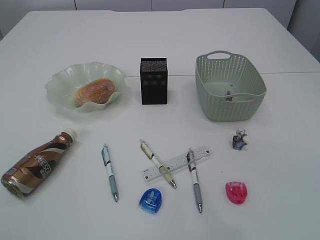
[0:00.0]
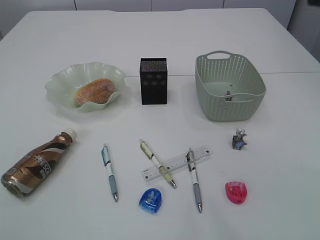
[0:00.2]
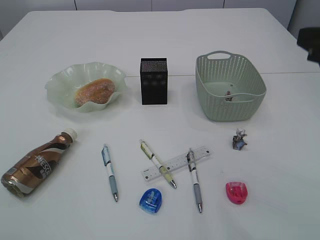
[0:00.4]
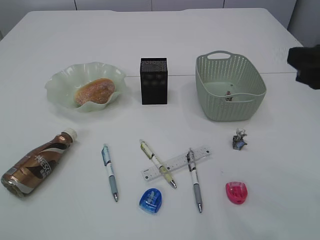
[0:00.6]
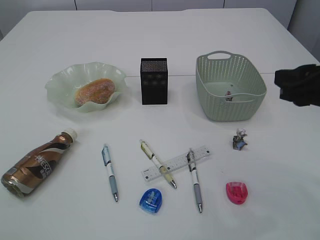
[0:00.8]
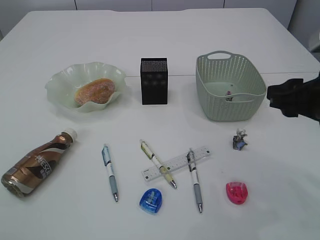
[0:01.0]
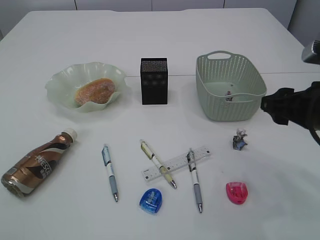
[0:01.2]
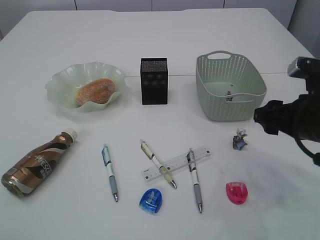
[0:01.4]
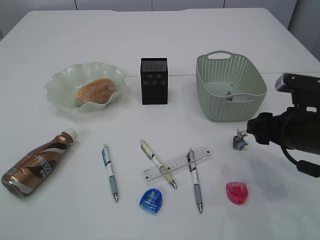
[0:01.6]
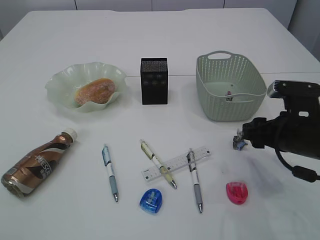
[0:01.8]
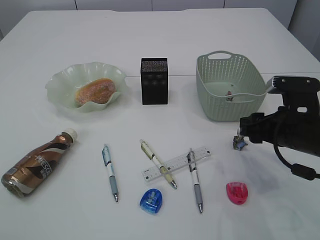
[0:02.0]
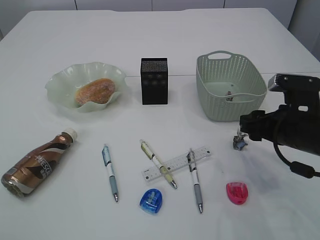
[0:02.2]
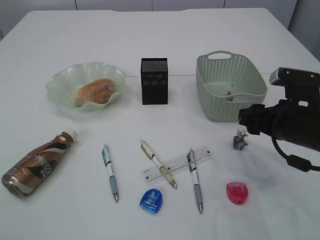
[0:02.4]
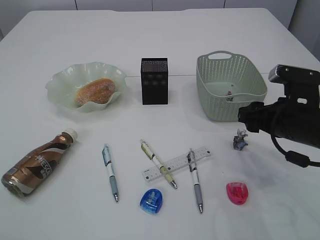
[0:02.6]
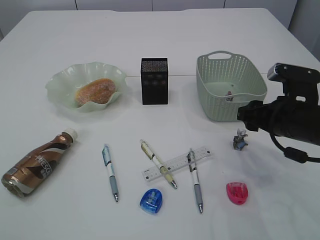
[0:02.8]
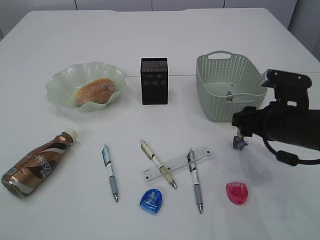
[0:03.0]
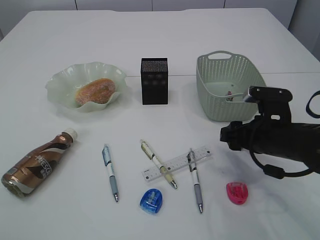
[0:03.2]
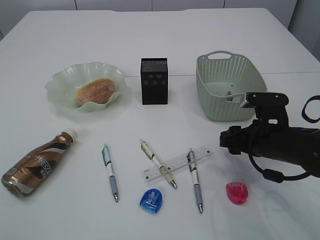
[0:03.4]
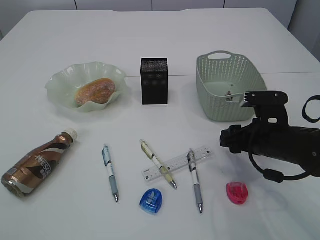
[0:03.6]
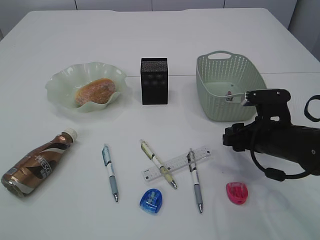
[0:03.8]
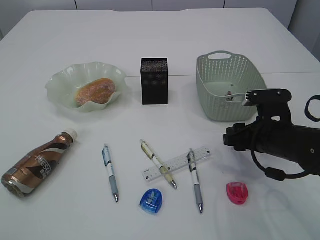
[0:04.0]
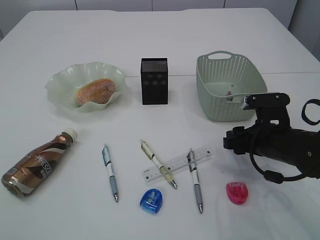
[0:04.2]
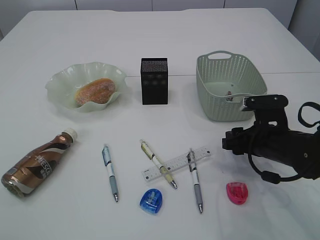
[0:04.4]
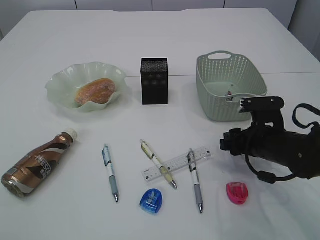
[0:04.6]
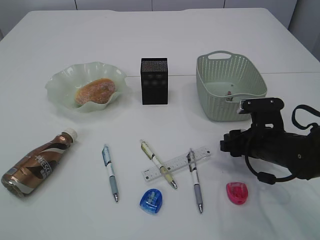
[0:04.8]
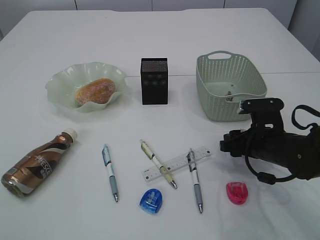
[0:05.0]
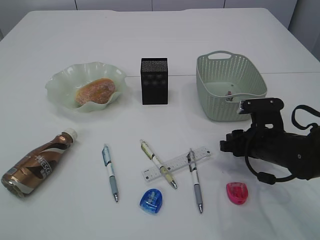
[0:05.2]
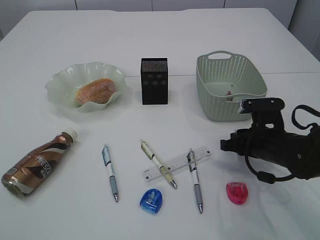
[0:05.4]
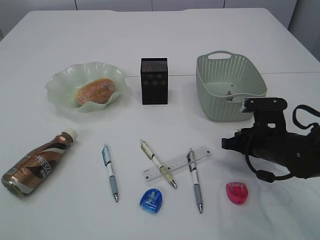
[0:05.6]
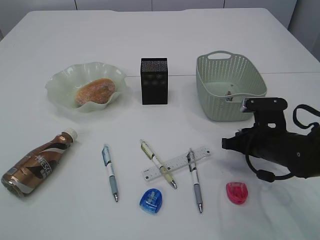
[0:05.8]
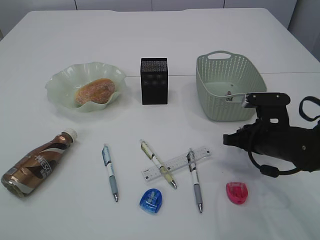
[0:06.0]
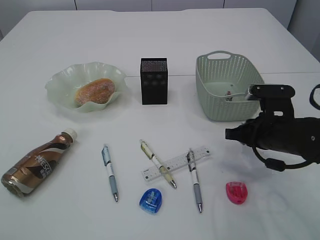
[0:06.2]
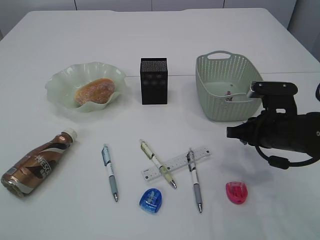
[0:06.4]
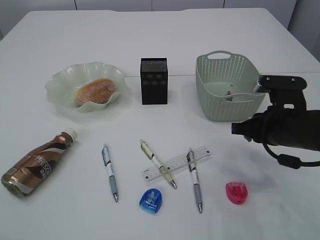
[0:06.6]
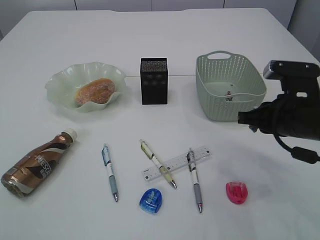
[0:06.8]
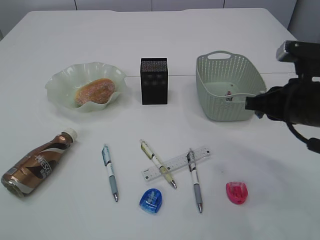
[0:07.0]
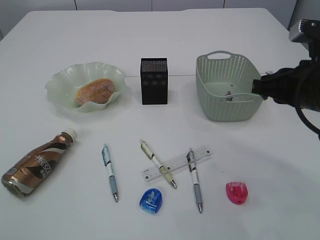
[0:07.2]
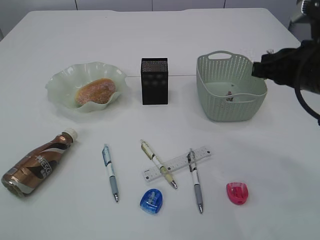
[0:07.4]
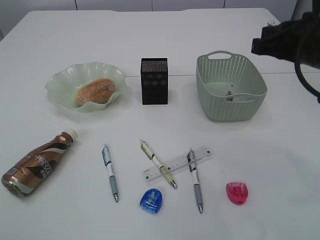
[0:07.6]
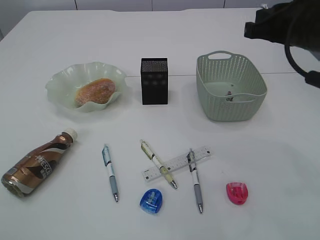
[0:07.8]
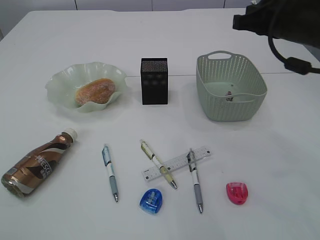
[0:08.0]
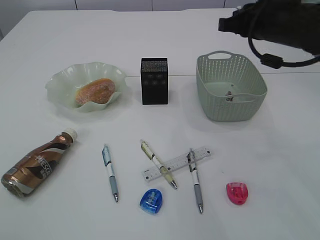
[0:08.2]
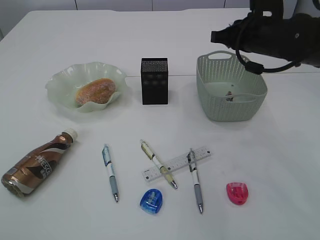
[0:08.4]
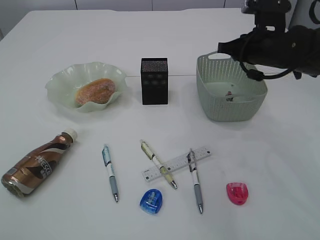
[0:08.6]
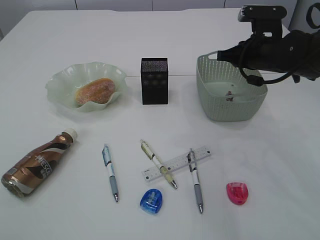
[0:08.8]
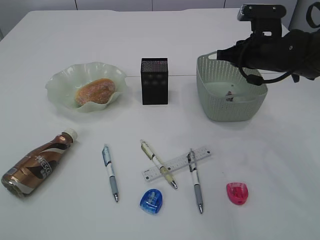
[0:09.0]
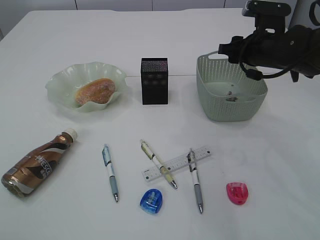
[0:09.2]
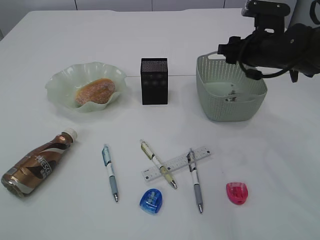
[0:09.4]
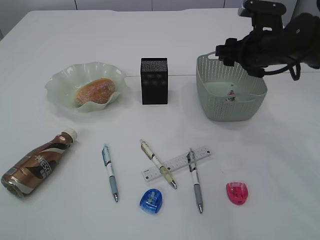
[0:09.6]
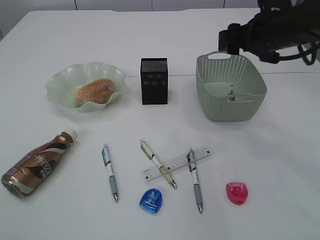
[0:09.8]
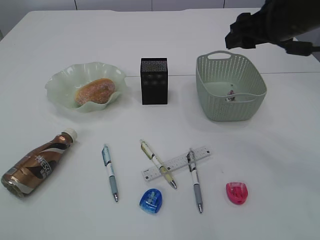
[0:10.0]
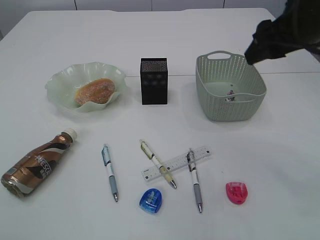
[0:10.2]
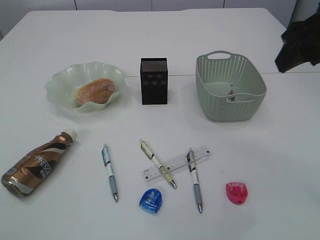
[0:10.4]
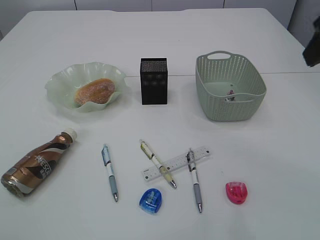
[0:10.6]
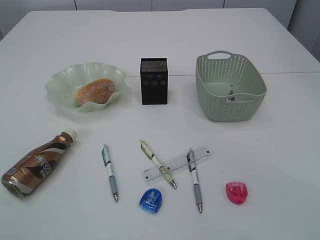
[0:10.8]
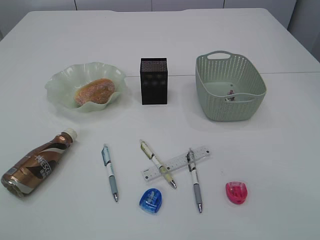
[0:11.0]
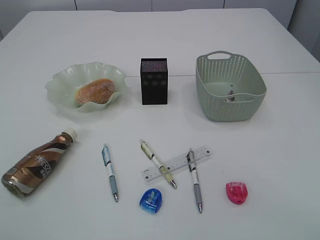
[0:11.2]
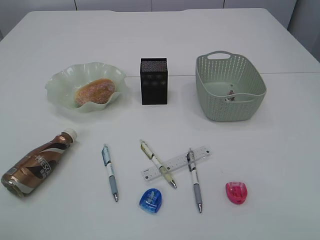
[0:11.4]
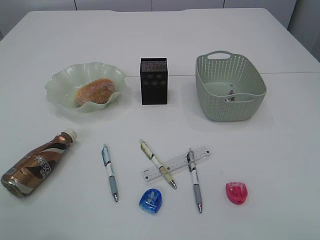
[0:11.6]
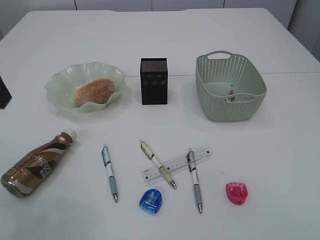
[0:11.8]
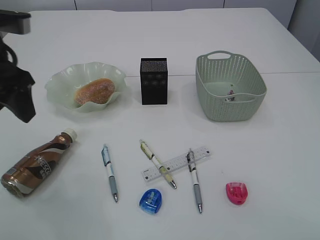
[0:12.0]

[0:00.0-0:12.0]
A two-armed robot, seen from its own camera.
Step, 0:00.0 to 0:06.8: Pick up the waste paper.
Step, 0:07.0 to 0:09.6: Place the waste paper in the basket.
0:00.0 to 0:01.6: The right gripper heads downward, covering roughly 25 cm.
0:01.6 to 0:03.0: There are only small adjustments of the grippers.
0:03.0 to 0:04.4: The right gripper travels downward by roughly 5 cm.
0:04.4 to 0:06.0: The right gripper closes up.
0:06.0 to 0:07.6: The right gripper heads upward, covering some 20 cm.
0:07.6 to 0:09.0: The right gripper travels forward and downward by approximately 15 cm.
0:09.0 to 0:10.4: The right gripper is displaced backward and upward by roughly 20 cm, and opens its fingers.
0:10.4 to 0:12.0: The right gripper moves backward, approximately 20 cm. The left gripper is displaced forward and downward by approximately 25 cm.

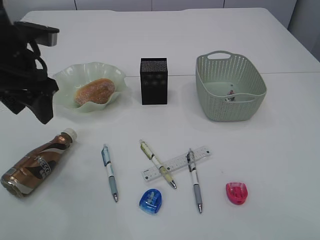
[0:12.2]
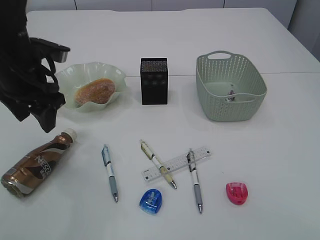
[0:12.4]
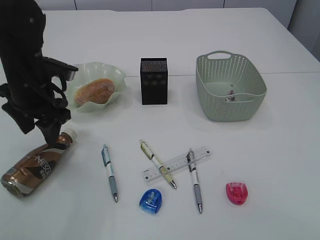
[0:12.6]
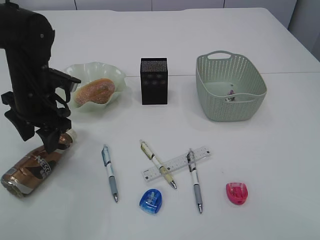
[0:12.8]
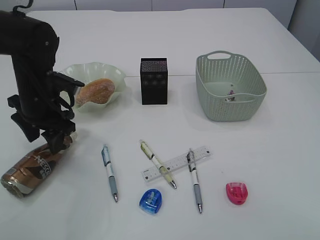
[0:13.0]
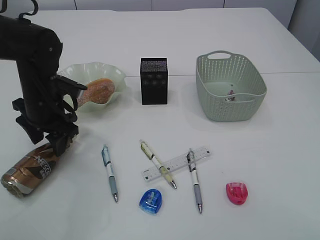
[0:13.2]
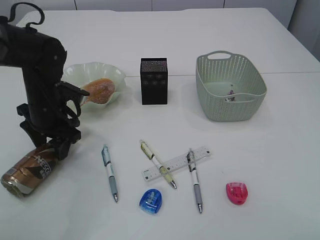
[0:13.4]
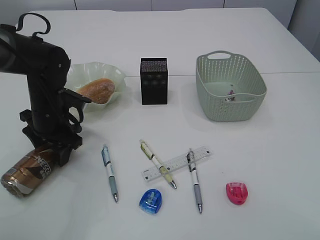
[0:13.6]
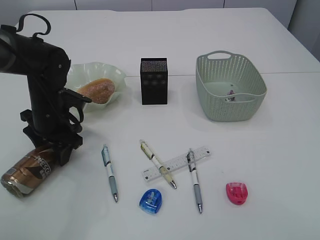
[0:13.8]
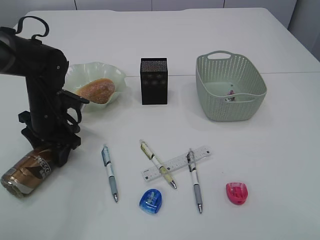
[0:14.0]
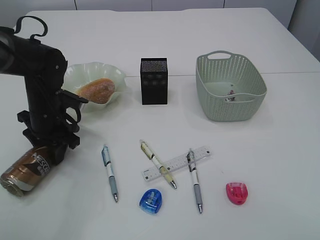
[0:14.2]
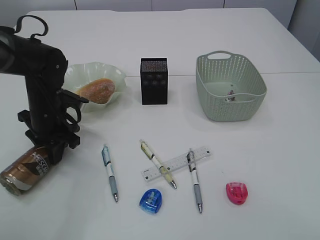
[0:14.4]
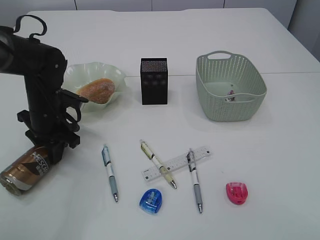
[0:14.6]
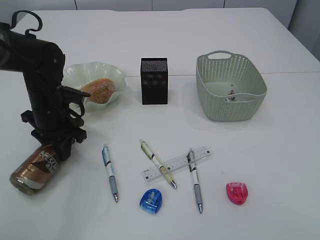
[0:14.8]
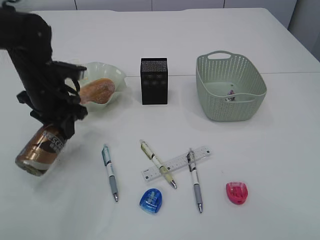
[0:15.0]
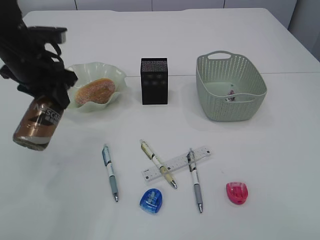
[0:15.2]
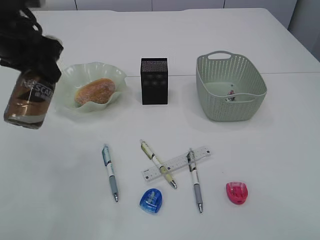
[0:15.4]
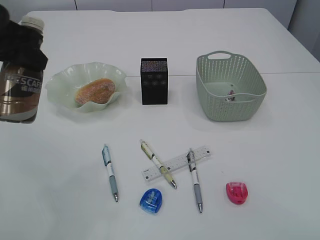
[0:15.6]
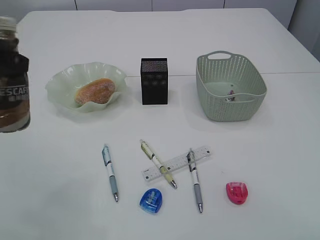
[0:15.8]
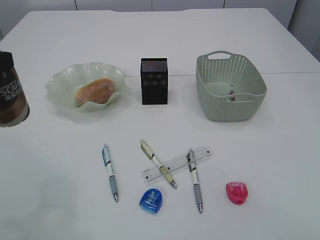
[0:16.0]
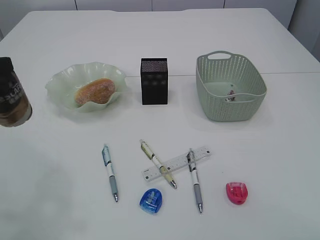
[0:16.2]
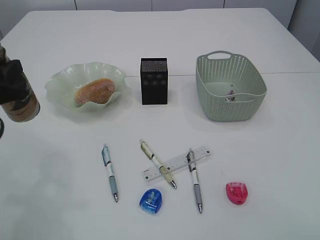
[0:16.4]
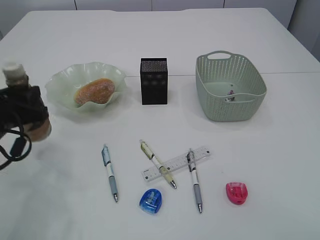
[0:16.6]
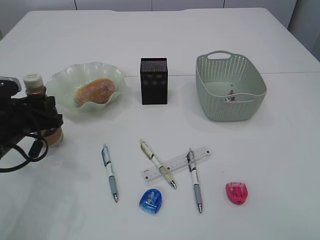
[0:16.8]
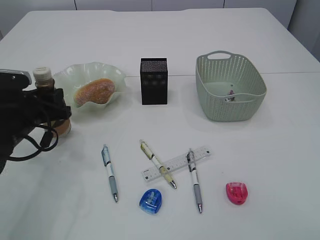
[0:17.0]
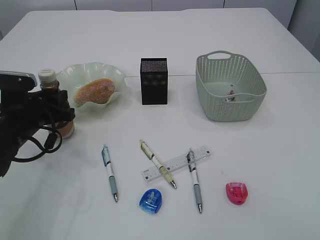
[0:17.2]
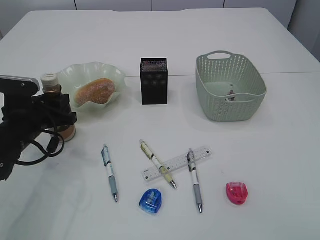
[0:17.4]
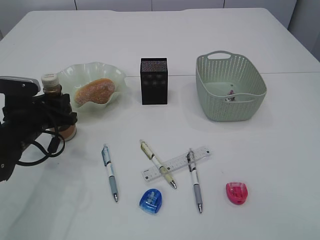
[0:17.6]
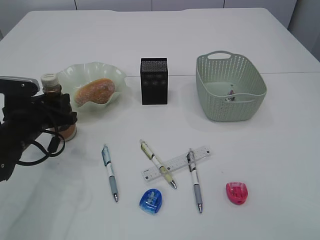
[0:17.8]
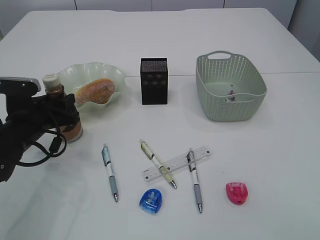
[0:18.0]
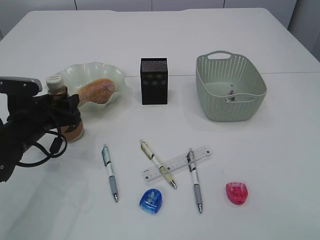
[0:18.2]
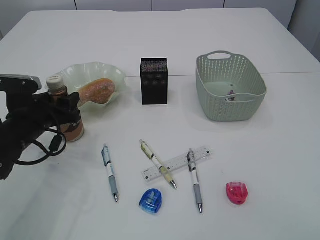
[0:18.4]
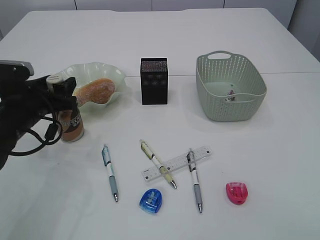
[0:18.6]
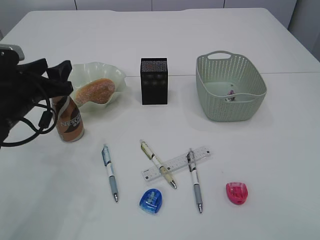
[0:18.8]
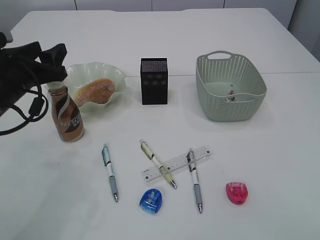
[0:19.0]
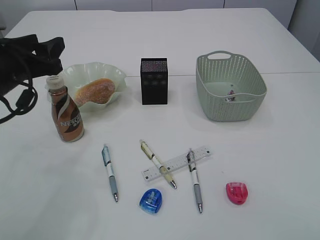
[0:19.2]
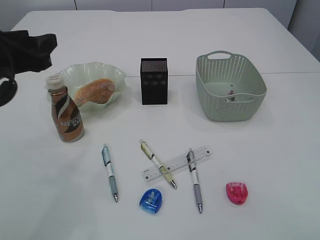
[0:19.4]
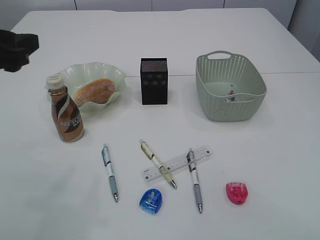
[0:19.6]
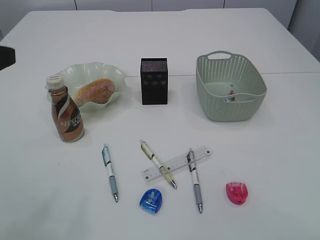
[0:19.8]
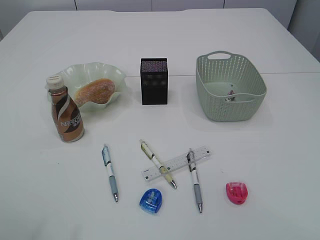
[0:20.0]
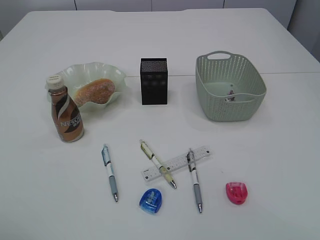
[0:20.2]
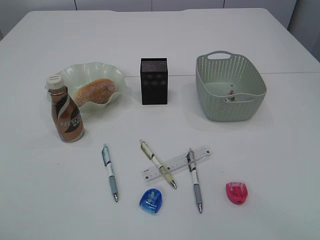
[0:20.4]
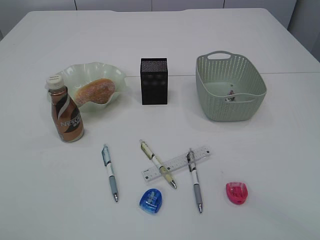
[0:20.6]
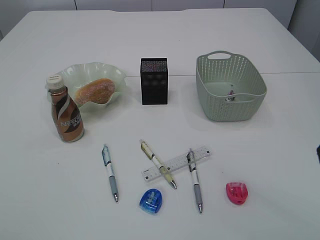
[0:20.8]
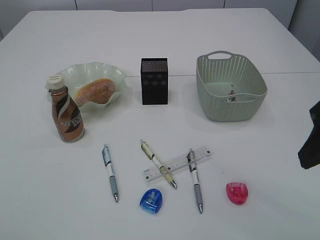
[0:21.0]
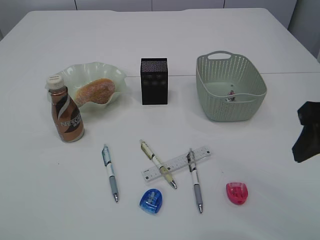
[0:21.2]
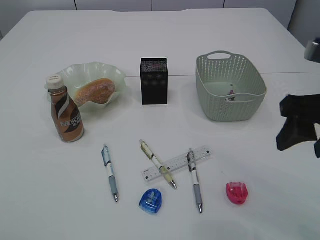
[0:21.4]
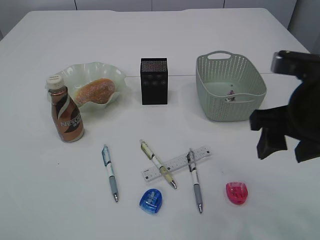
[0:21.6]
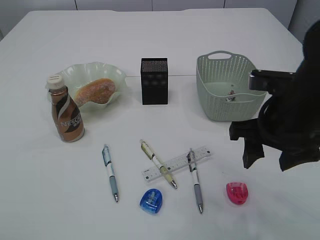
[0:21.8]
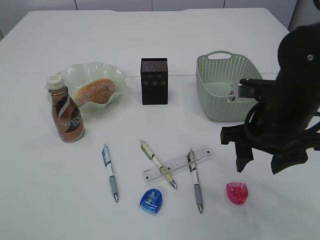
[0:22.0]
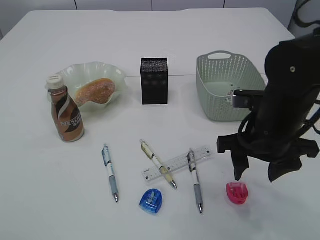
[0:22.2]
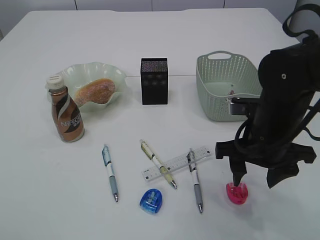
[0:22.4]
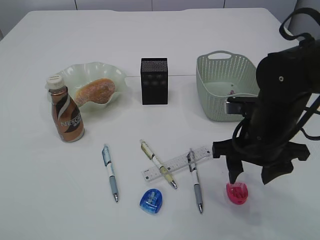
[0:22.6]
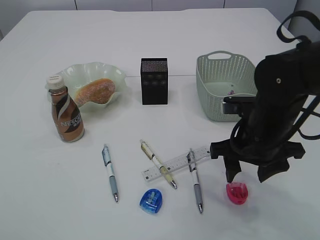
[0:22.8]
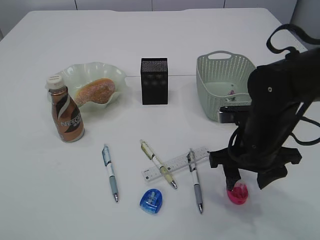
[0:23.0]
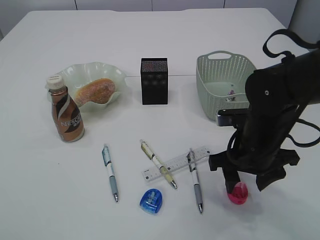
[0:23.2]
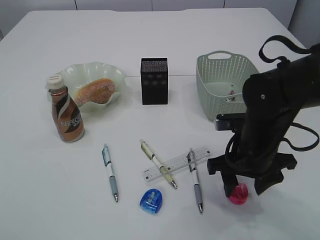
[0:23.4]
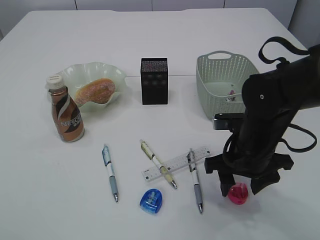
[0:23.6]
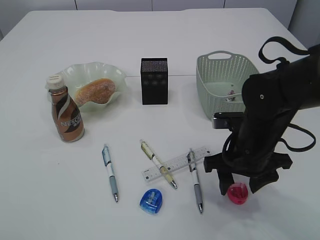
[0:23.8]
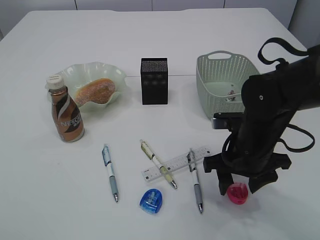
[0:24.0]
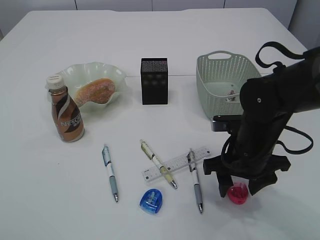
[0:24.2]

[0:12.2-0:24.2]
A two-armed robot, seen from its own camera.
Step, 0:12.2 to 0:15.2: Pick up the bottle with the left arm.
Step, 0:15.4 to 0:19.2: Place the bottle.
0:12.2 to 0:13.8: The left gripper goes about 15 cm downward.
0:13.8 to 0:15.2: The left gripper heads upward, covering about 10 cm, and closes its fingers.
0:15.2 to 0:16.6: The left gripper is displaced backward, downward and to the left by roughly 15 cm.
0:16.6 to 0:18.2: The left gripper moves downward and forward, some 10 cm, and opens up.
0:18.2 to 0:19.8: The left gripper travels upward and backward by about 25 cm.
0:19.8 to 0:21.2: The right gripper moves forward and downward, roughly 15 cm.
0:21.2 to 0:22.6: The right gripper heads downward, forward and to the left, covering approximately 15 cm.
0:22.6 to 0:24.2: The grippers stay close to where they were, moving slightly.
